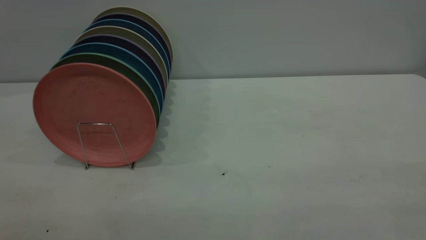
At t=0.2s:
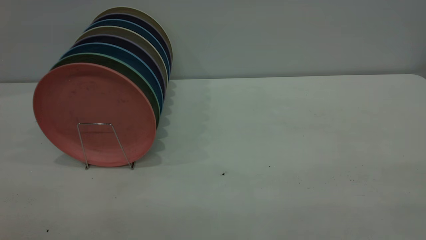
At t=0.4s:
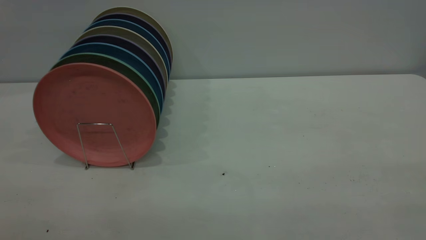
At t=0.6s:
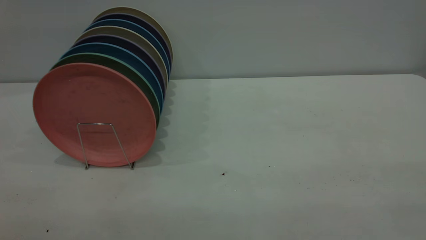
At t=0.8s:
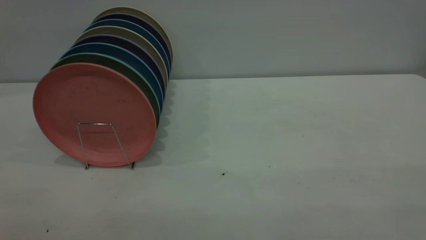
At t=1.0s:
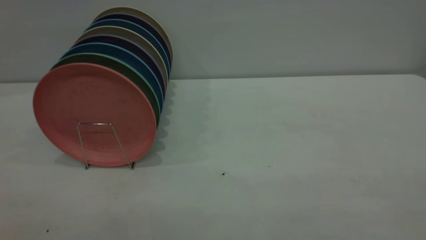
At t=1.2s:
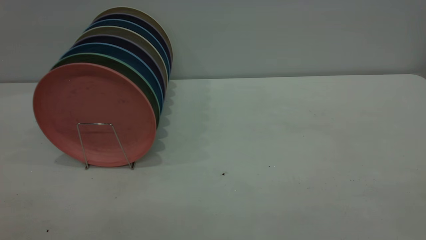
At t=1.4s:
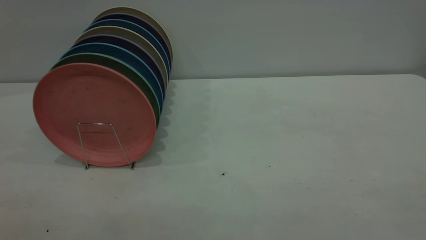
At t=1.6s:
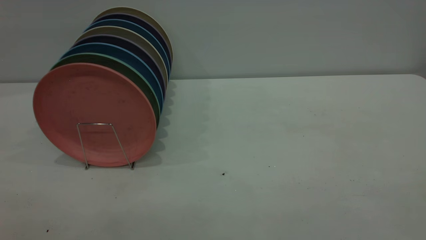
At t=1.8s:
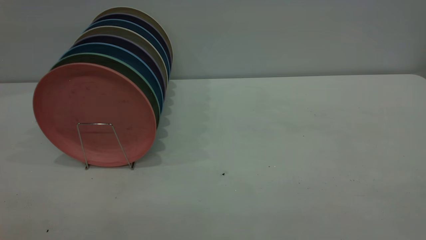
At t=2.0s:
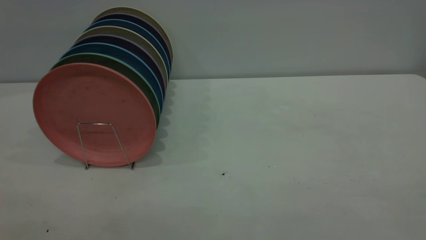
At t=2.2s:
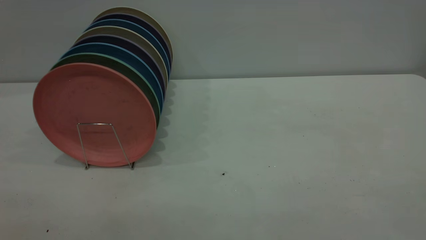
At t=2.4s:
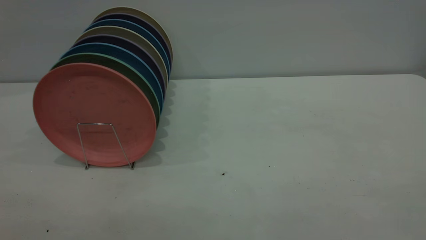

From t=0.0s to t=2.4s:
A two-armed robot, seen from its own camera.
Task of the whole recording: the right gripper grasp the pink plate, the right gripper pass the pink plate to the left gripper, and the left gripper place the pink plate on the plate rack.
From t=1.2s to t=2.4s: Both grippers stay about where they are.

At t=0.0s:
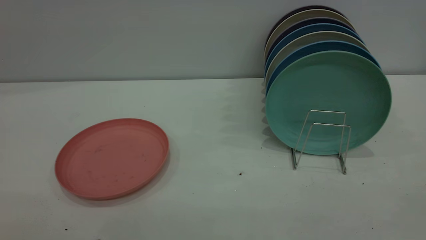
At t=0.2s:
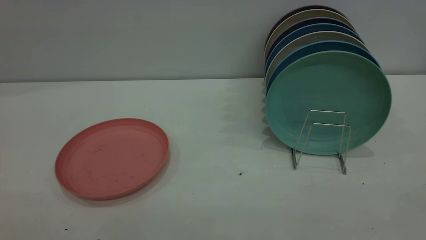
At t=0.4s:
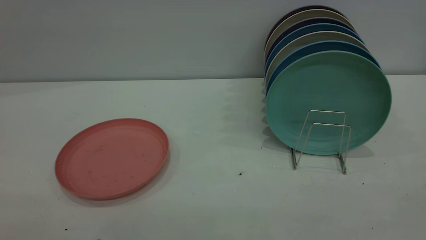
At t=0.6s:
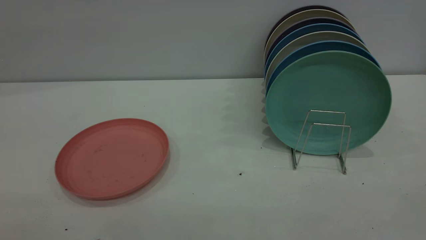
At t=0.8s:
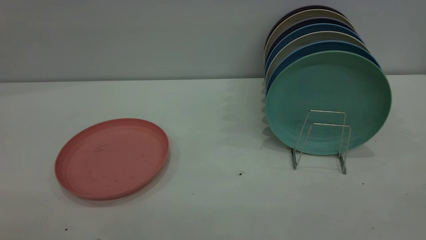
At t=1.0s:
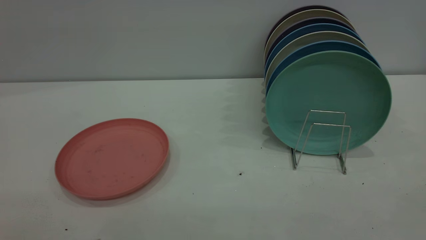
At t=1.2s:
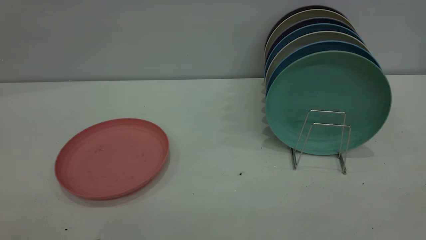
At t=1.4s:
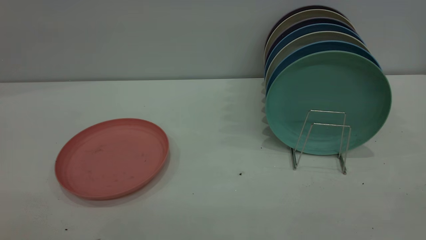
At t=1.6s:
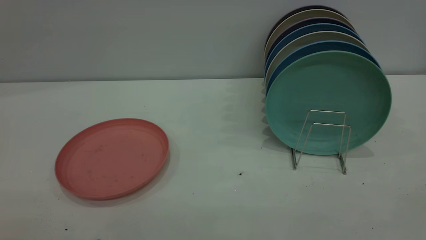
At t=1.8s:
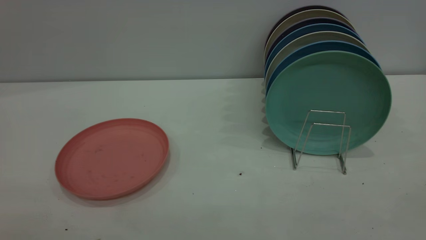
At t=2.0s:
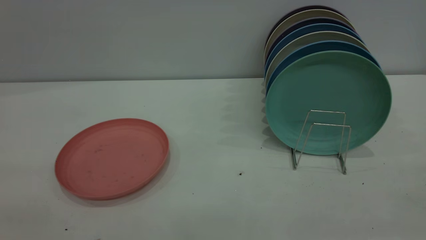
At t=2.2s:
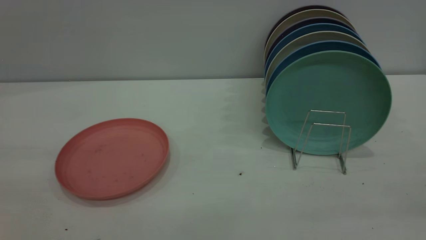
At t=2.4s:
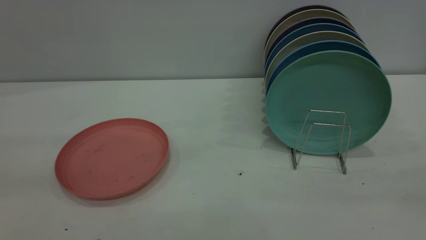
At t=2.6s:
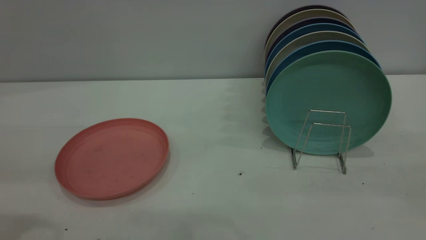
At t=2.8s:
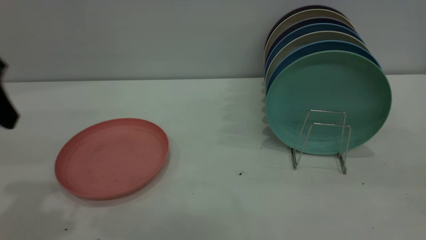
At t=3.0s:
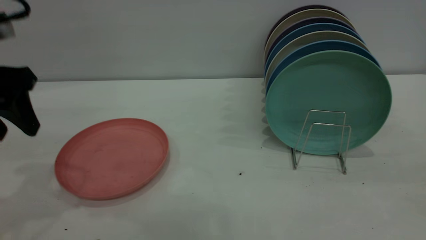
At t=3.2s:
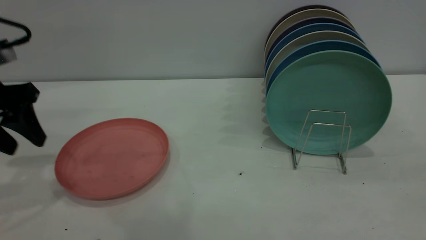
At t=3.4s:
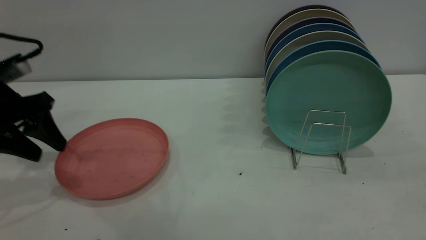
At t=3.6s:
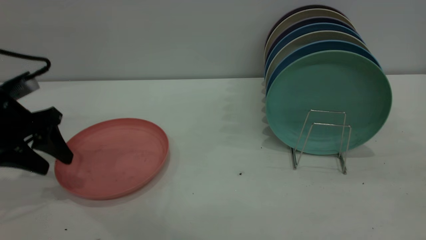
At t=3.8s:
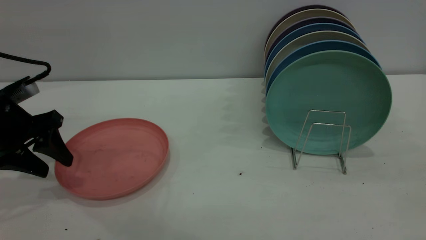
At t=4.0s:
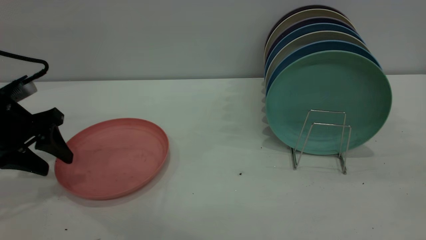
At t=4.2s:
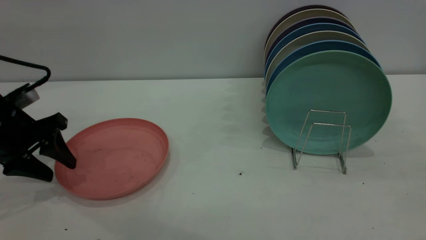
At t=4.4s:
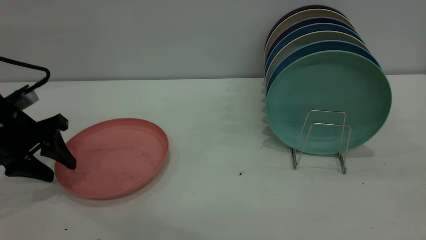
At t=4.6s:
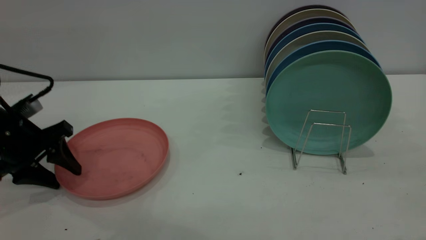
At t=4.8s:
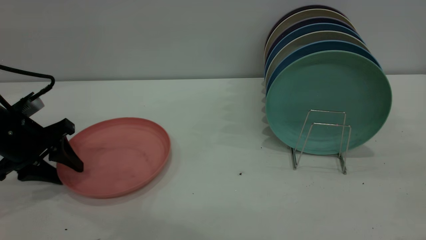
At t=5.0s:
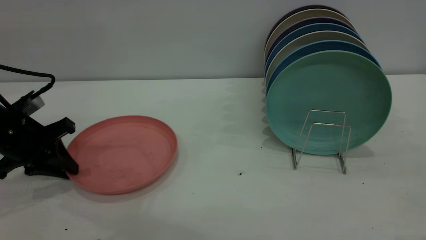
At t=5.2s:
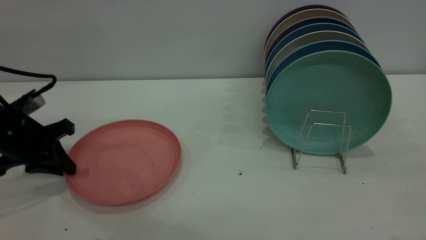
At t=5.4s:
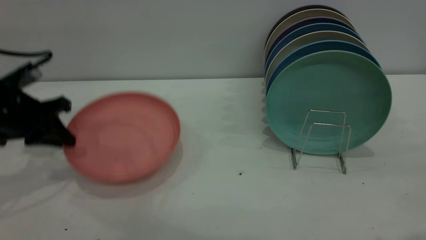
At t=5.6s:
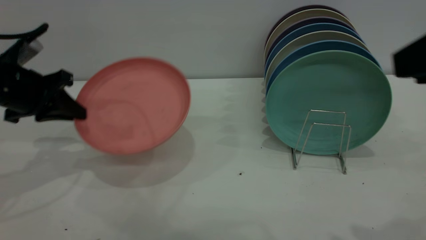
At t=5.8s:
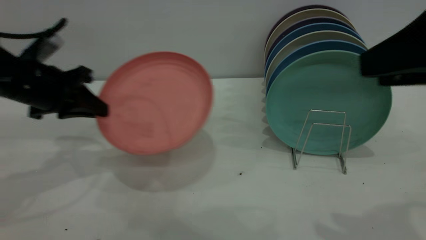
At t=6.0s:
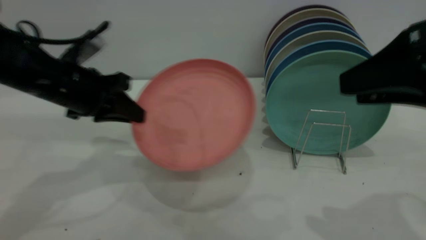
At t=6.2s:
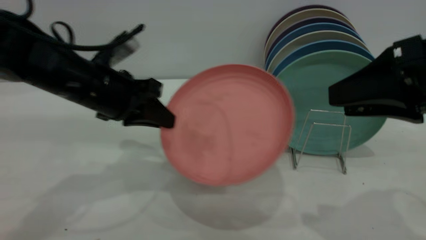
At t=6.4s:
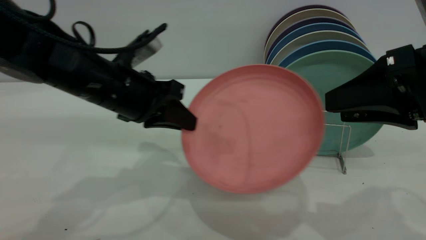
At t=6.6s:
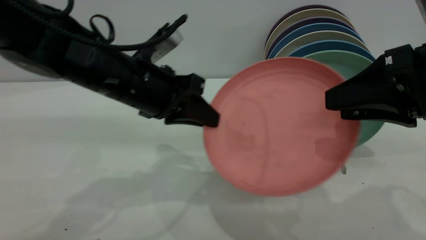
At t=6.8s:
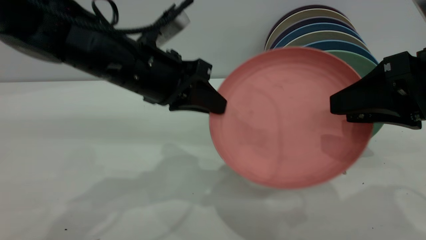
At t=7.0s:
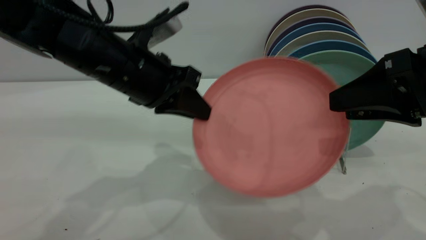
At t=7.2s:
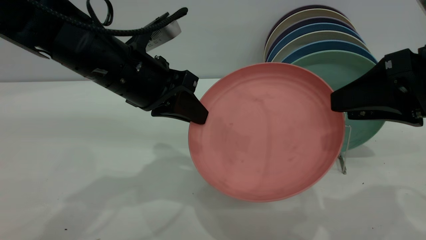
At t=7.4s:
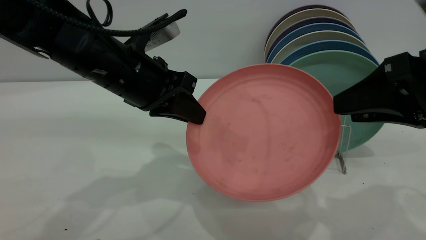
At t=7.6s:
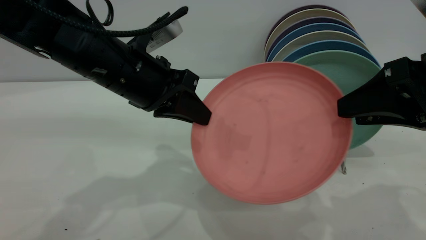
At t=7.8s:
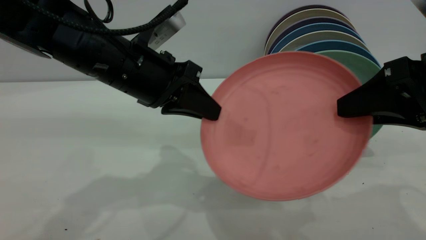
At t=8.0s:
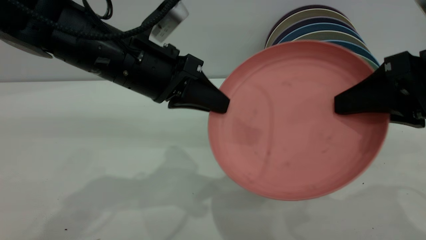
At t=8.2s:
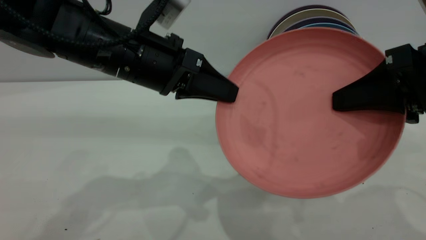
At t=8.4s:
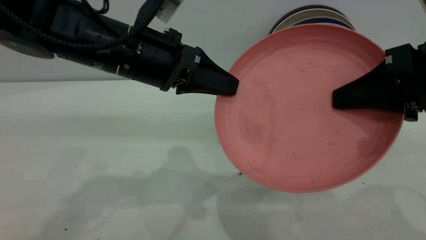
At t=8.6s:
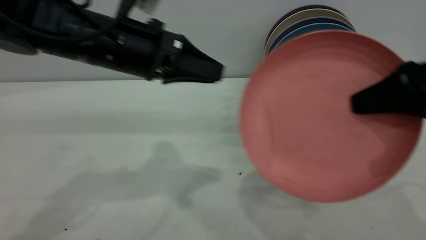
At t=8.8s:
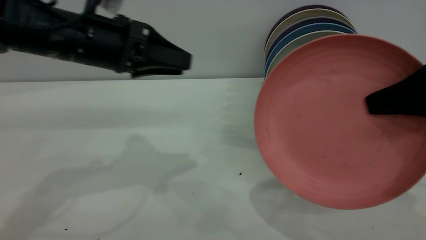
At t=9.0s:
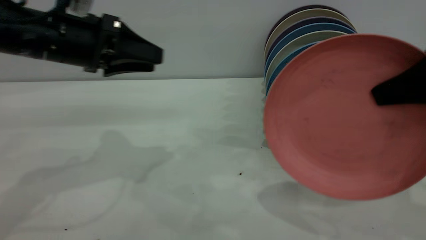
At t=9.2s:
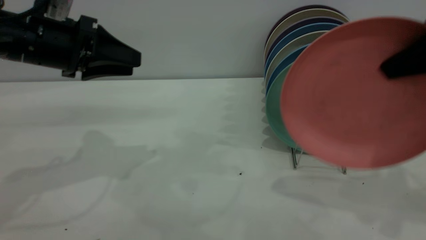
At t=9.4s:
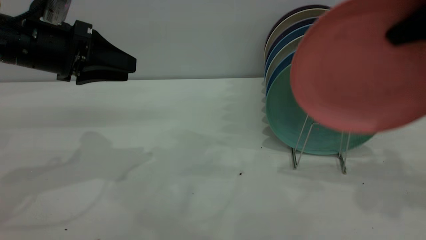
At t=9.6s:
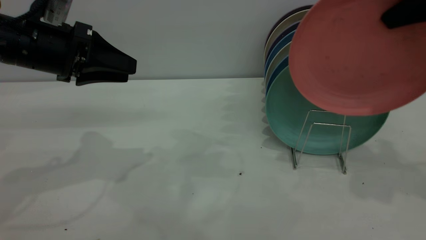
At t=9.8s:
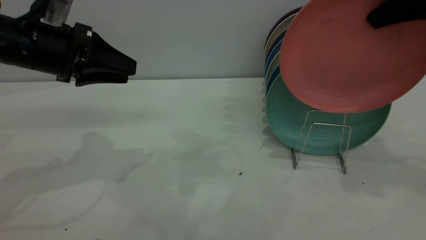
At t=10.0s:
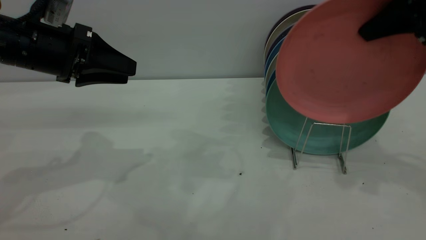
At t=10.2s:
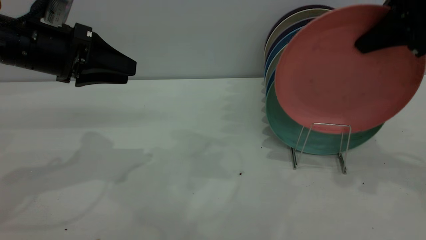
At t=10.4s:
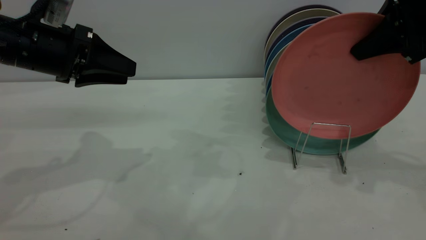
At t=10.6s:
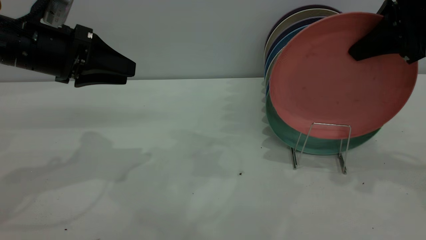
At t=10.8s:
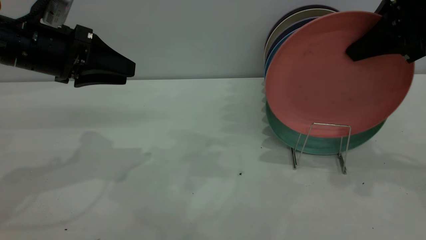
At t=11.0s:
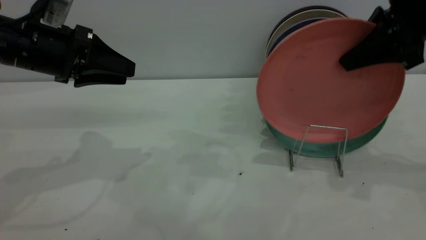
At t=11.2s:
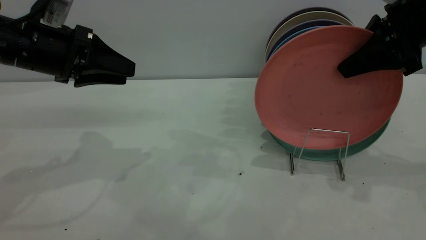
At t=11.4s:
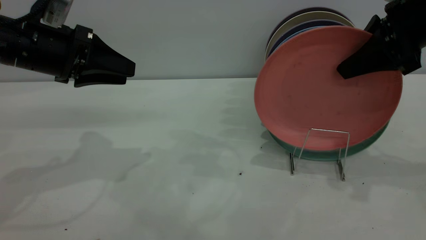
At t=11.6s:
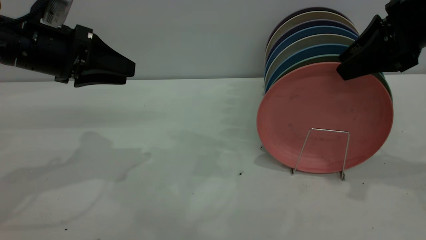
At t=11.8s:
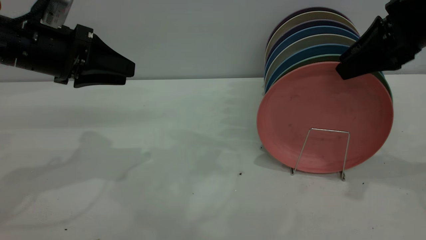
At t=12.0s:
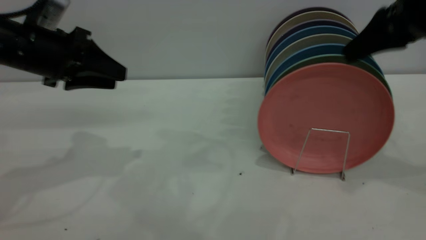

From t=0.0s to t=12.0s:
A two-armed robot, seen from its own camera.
Task of the whole recording: put the plate on the plate rack.
Step, from t=0.0s to t=5.2s: Pass the plate from the left gripper to the right gripper.
Step, from t=5.6s to t=7.6s: Pick up the plate with the left gripper.
Step, from t=8.0s to t=11.8s: Place the plate on the shelf.
From t=0.0s to t=1.6s: Both grippers stay about where they are.
From t=1.6s to t=3.0s: The left gripper travels forward by approximately 30 cm.
From t=3.0s to t=4.4s: The left gripper is displaced downward by about 10 cm.
From t=4.4s to t=6.0s: The left gripper goes some 10 cm to the right, and closes. Meanwhile the right gripper goes approximately 10 cm forward and downward.
From t=6.0s to t=7.6s: The left gripper travels to the right by some 10 cm.
From t=7.6s to t=9.0s: The right gripper ends up roughly 5 cm from where it was, and closes up; the left gripper shifts approximately 10 cm to the left, and opens.
From t=9.0s to t=10.4s: The right gripper moves forward, about 10 cm.
From t=10.4s to t=12.0s: The right gripper opens its fingers.

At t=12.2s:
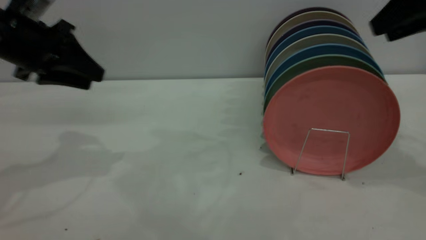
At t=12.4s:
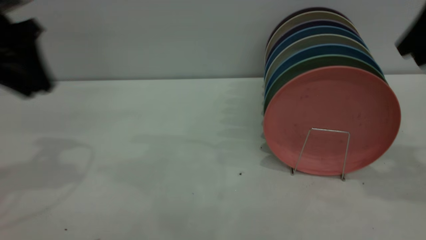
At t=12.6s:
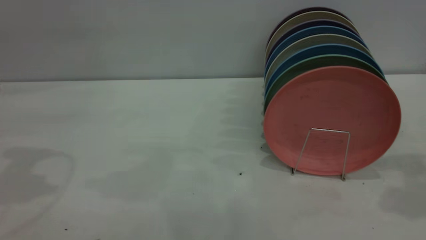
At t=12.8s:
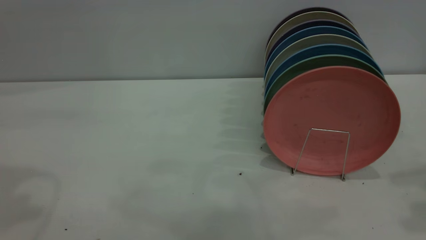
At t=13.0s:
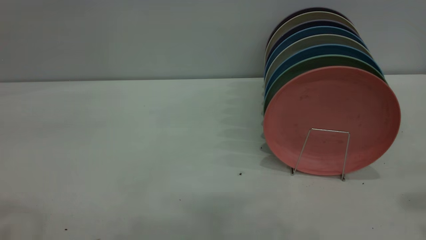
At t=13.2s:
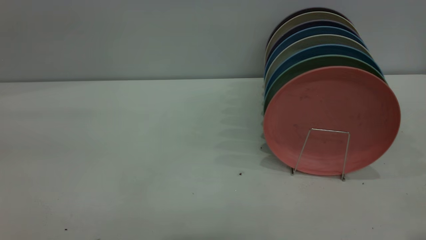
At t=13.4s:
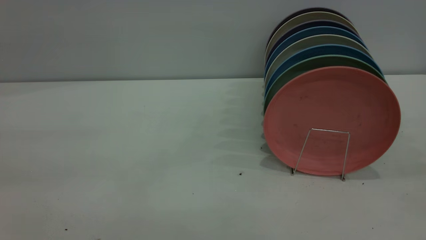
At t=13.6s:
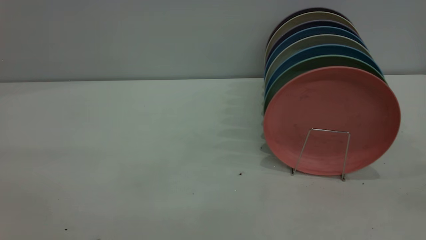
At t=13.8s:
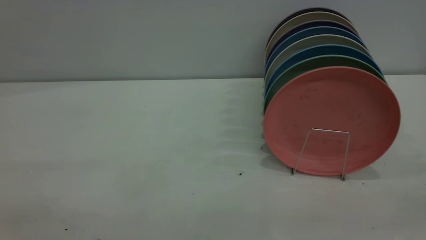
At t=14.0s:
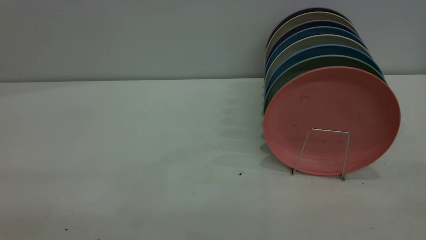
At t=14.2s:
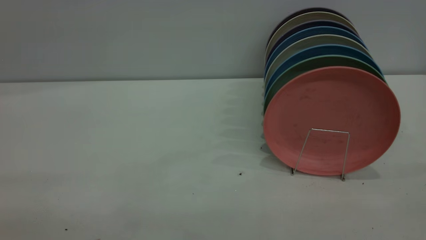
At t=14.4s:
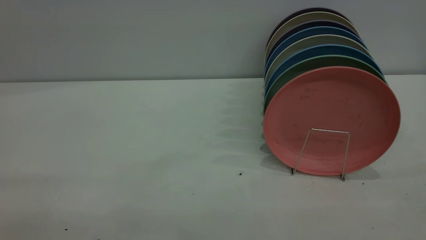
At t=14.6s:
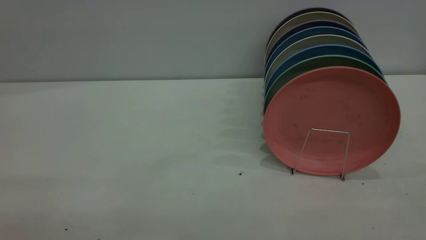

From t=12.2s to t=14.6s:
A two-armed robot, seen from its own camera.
Task of the whole recording: put the plate on the plate rack.
From t=12.2s to t=13.4s: The right gripper is displaced backward by some 25 cm. The left gripper travels backward and upward by some 30 cm.
